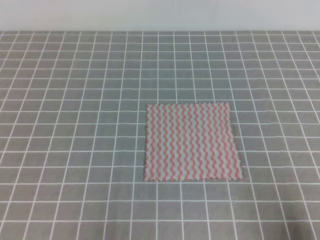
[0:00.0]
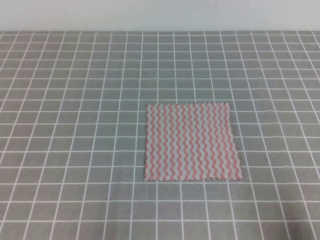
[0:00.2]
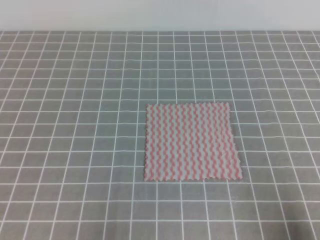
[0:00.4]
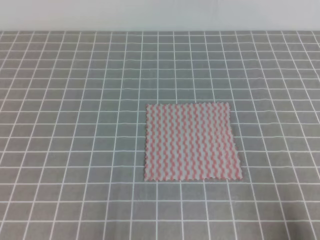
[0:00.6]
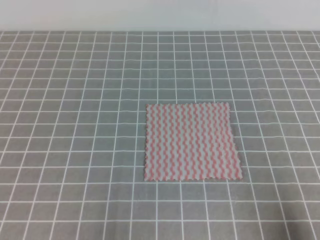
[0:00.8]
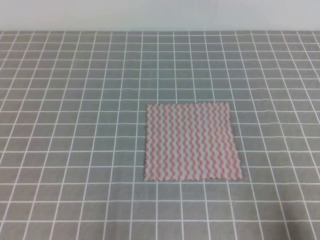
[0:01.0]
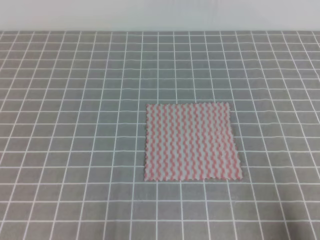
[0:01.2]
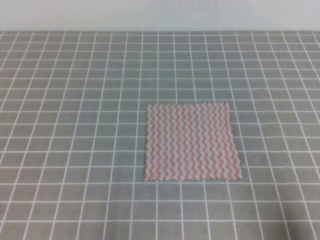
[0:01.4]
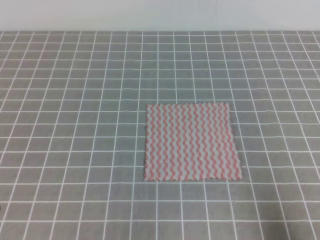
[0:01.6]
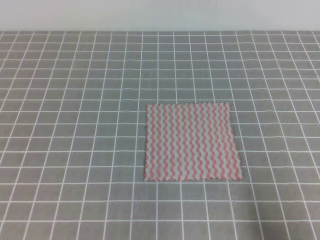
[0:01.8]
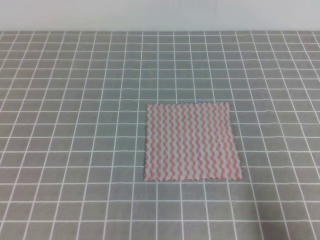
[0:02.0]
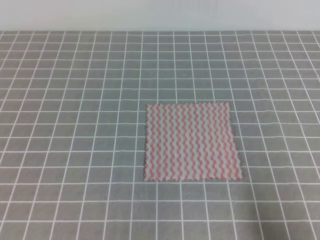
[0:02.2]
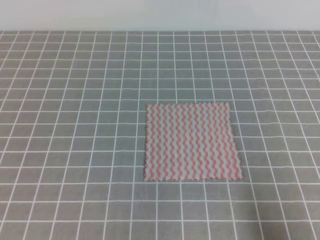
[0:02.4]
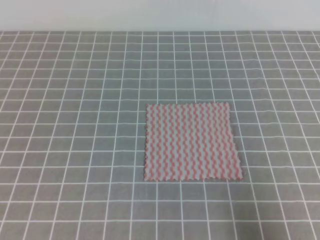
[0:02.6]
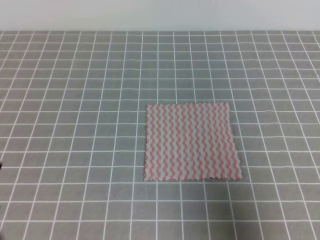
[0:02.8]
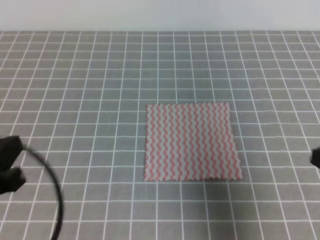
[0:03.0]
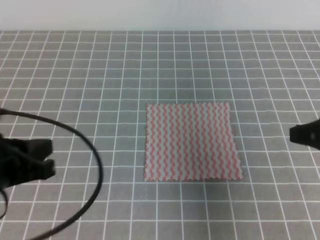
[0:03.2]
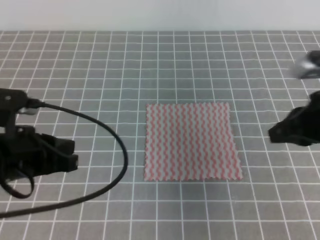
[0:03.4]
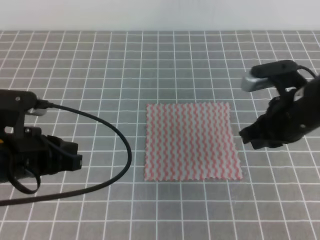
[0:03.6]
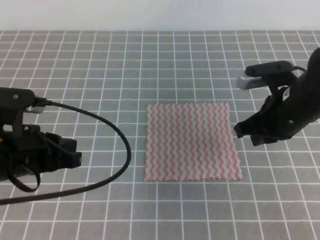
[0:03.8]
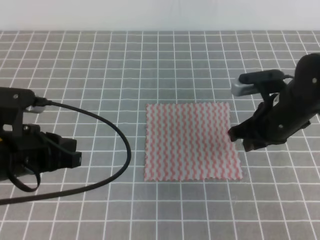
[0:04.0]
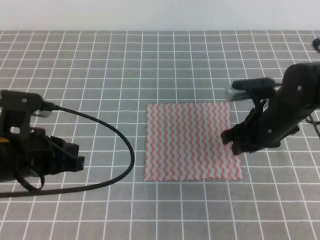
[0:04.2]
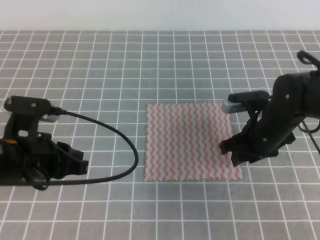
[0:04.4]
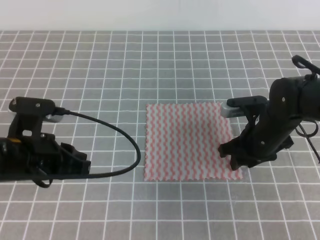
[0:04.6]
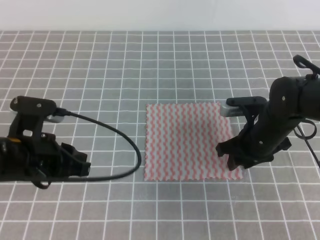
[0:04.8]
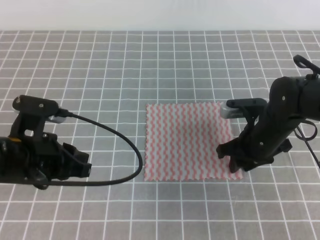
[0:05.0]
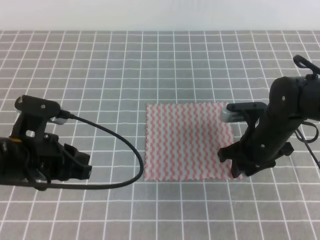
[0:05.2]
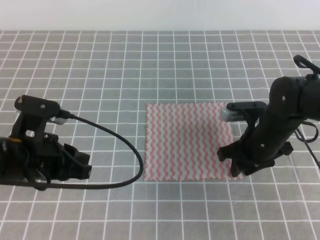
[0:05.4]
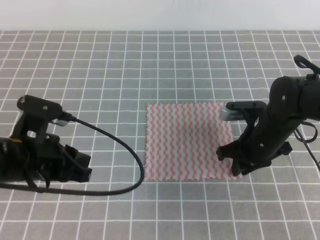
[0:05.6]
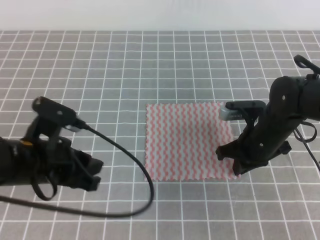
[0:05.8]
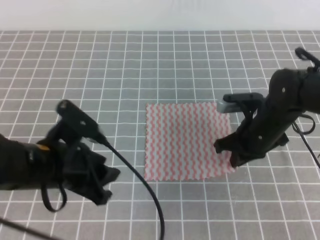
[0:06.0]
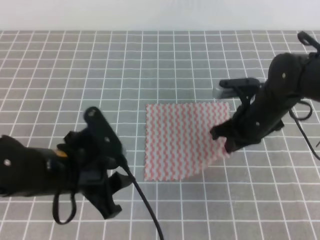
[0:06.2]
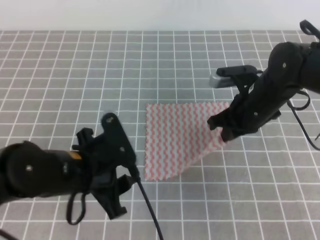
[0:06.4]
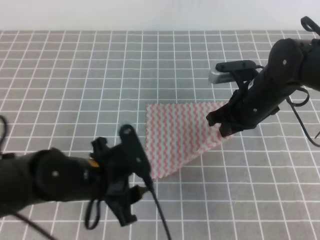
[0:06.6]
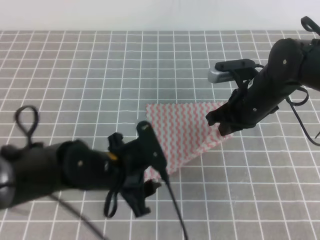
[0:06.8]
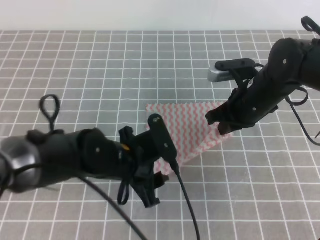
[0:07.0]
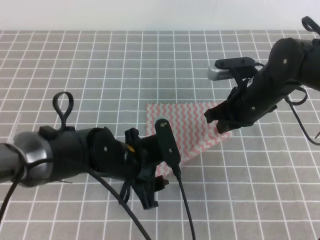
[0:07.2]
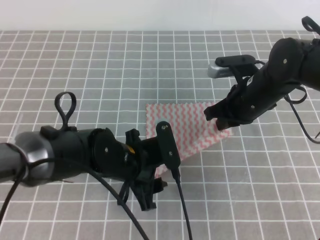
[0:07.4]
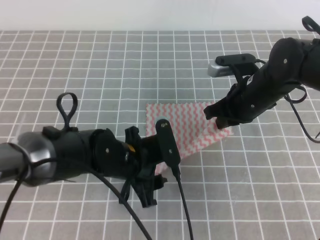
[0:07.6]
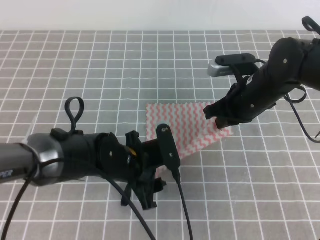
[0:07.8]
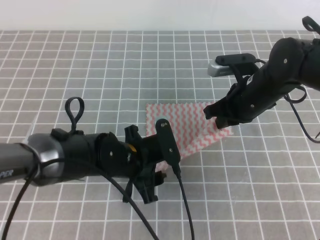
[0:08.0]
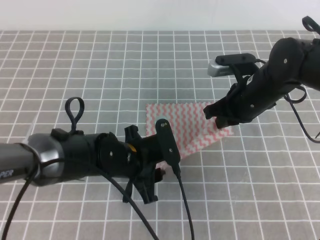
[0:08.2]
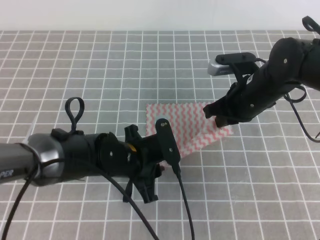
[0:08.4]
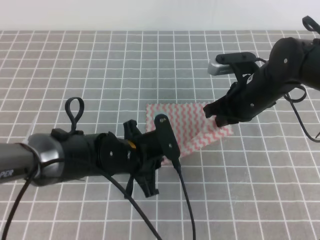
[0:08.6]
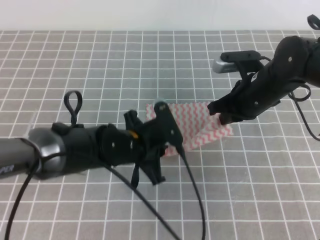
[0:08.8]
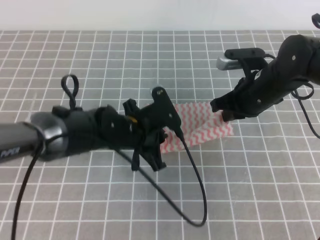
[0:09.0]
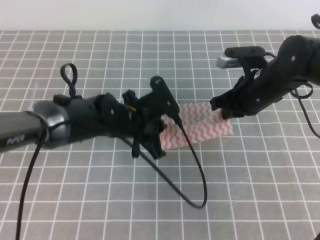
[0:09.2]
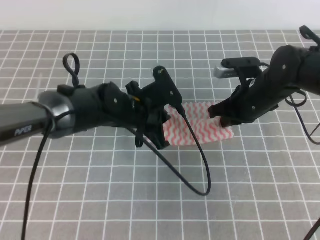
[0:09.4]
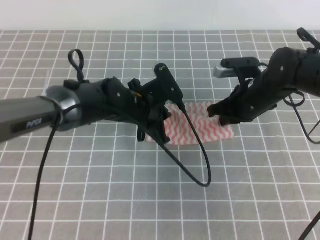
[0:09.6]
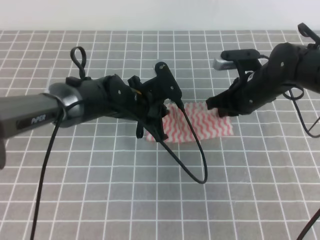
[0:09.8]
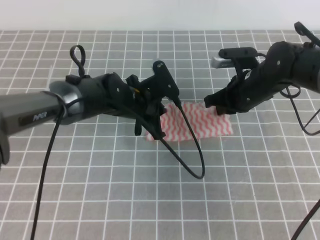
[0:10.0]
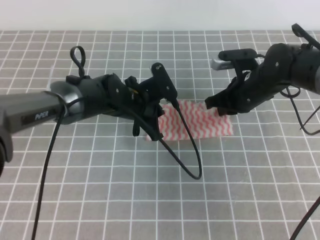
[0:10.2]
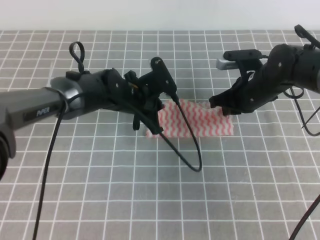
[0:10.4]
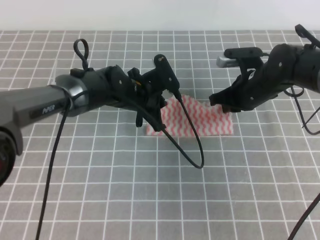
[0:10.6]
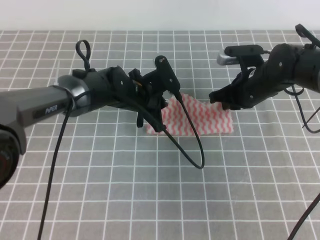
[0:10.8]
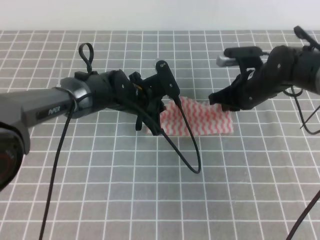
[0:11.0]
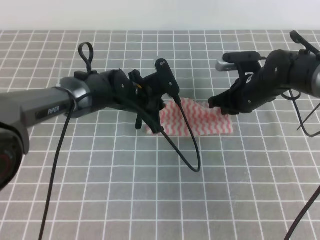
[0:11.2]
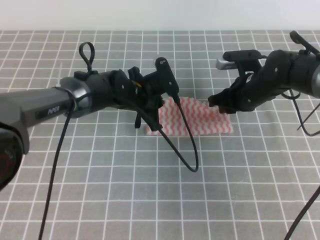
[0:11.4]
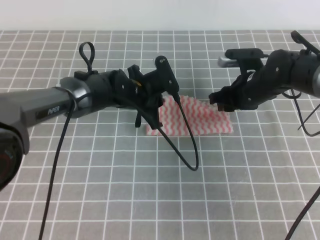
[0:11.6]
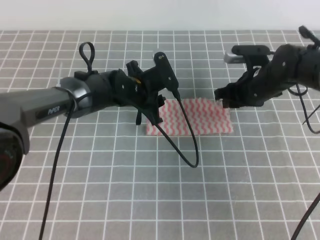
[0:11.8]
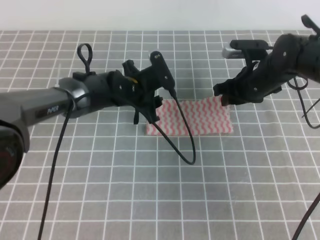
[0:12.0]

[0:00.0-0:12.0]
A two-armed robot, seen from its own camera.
Step, 0:00.0 to 0:07.4: Fold the towel upwards with the both gripper.
Step, 0:07.6 to 0:09.4: Fold the towel from right to left with the right gripper.
Step, 0:09.6 to 0:10.2: Tidy up the towels.
0:01.6 to 0:03.0: The grippers both shift upward and forward by roughly 10 cm.
0:03.0 to 0:04.4: The right gripper travels forward, to the left and downward by about 25 cm, and opens, while the left gripper heads forward, covering roughly 10 cm.
0:04.4 to 0:06.0: The right gripper closes up; the left gripper opens up.
0:06.0 to 0:07.6: The left gripper is displaced to the right and downward by approximately 10 cm, while the right gripper shifts by about 5 cm.
0:07.6 to 0:09.0: The left gripper changes place by about 5 cm, and closes.
0:09.0 to 0:10.4: The left gripper is displaced forward by approximately 10 cm.
0:10.4 to 0:12.0: The left gripper opens its fingers. The right gripper opens its fingers.

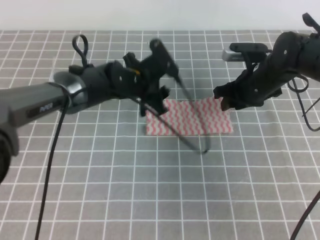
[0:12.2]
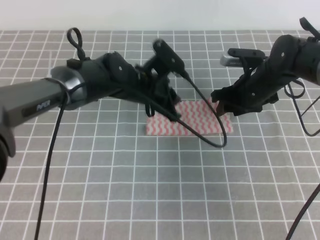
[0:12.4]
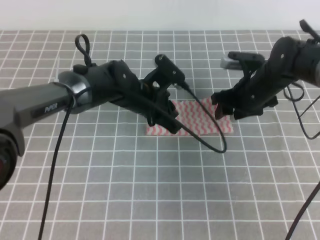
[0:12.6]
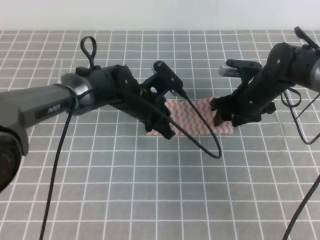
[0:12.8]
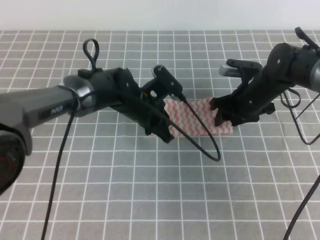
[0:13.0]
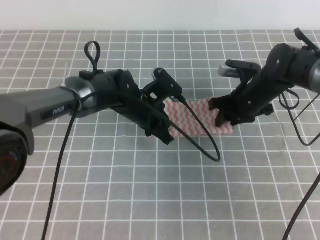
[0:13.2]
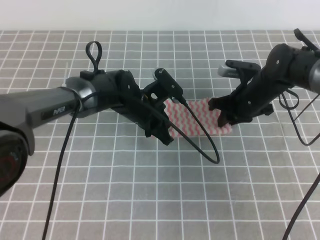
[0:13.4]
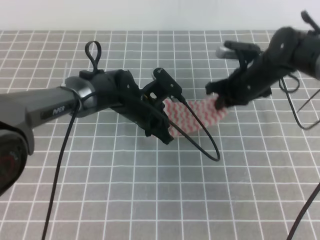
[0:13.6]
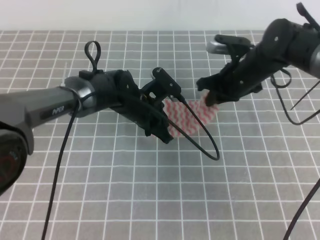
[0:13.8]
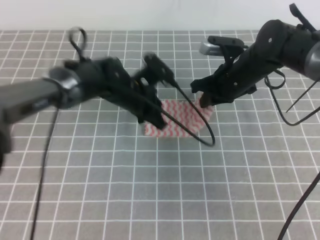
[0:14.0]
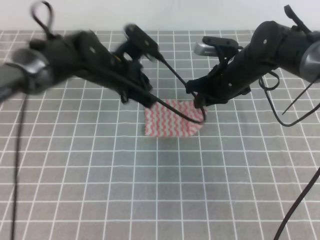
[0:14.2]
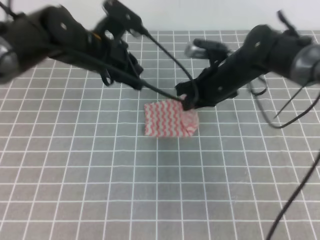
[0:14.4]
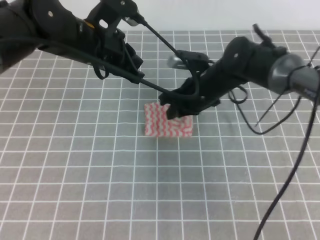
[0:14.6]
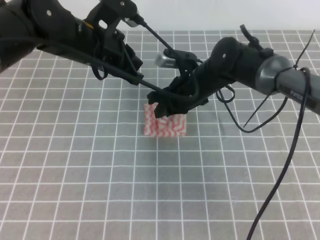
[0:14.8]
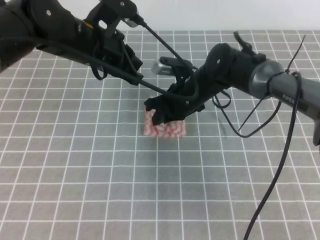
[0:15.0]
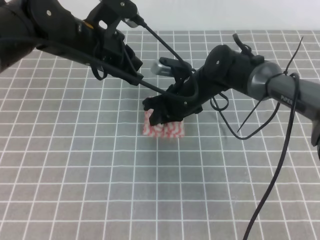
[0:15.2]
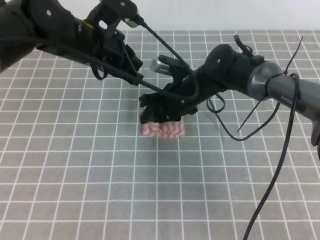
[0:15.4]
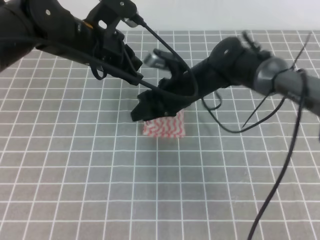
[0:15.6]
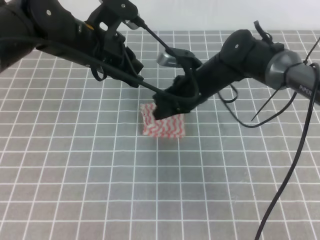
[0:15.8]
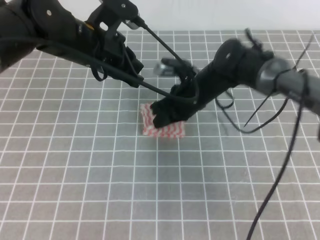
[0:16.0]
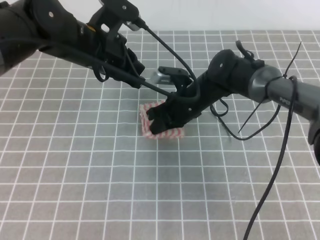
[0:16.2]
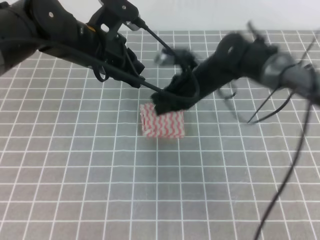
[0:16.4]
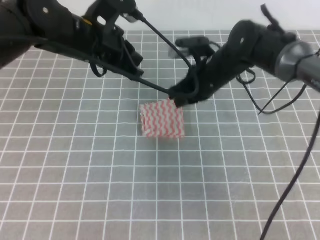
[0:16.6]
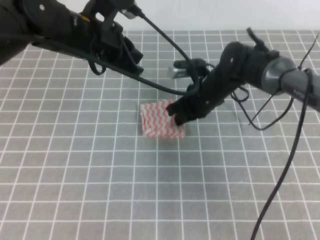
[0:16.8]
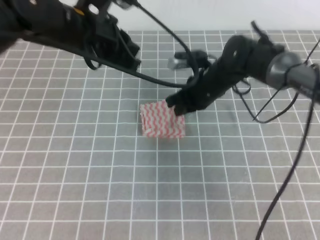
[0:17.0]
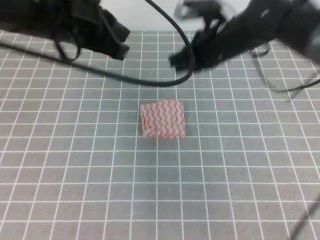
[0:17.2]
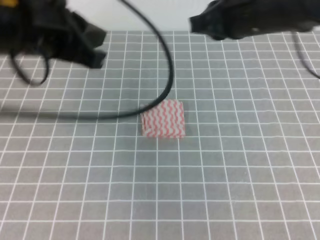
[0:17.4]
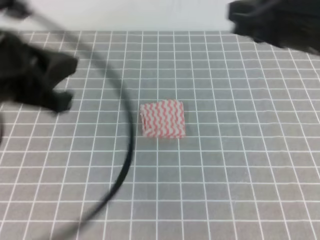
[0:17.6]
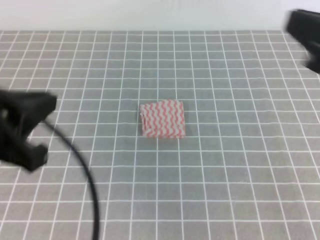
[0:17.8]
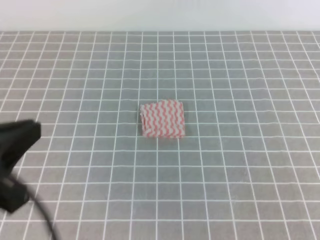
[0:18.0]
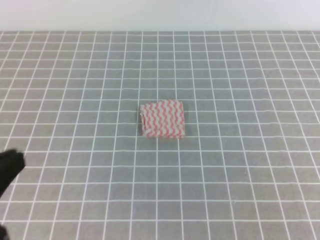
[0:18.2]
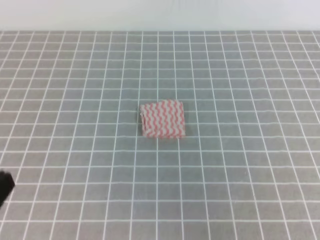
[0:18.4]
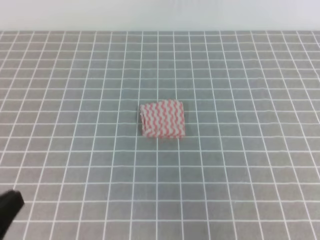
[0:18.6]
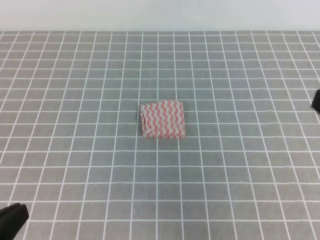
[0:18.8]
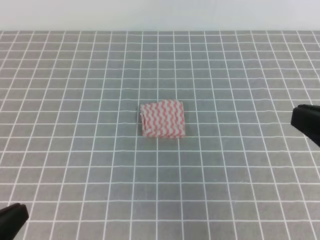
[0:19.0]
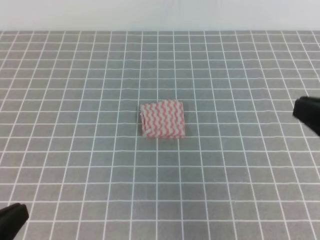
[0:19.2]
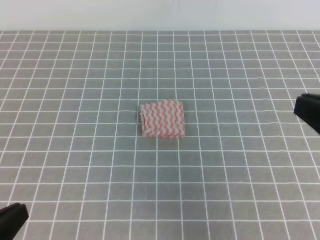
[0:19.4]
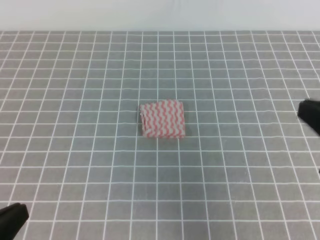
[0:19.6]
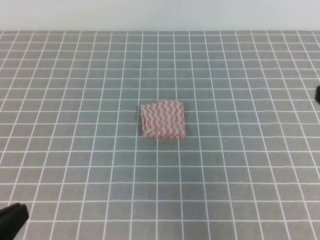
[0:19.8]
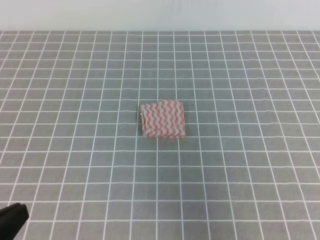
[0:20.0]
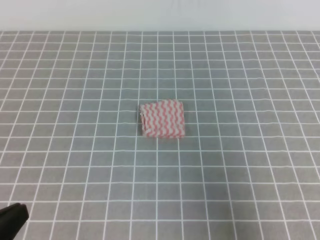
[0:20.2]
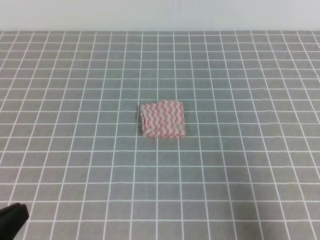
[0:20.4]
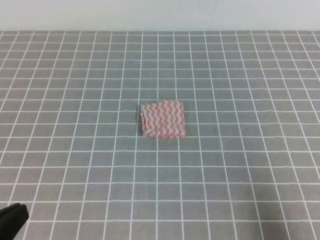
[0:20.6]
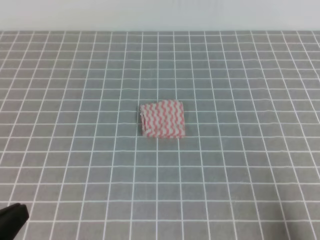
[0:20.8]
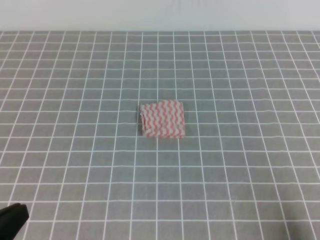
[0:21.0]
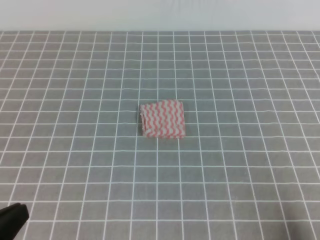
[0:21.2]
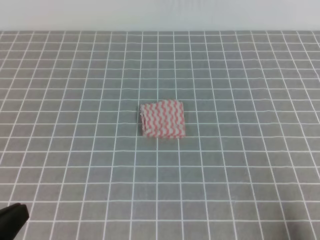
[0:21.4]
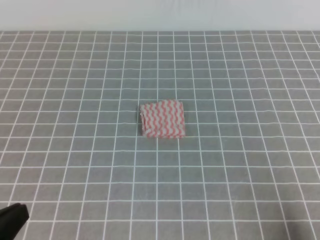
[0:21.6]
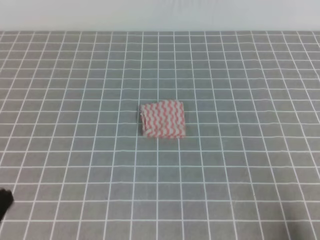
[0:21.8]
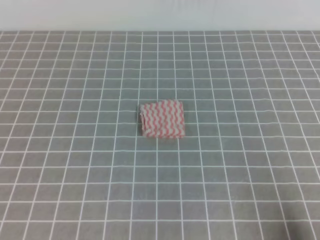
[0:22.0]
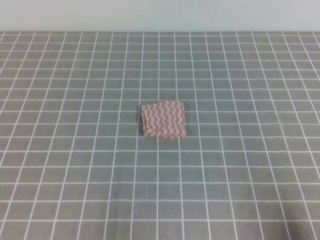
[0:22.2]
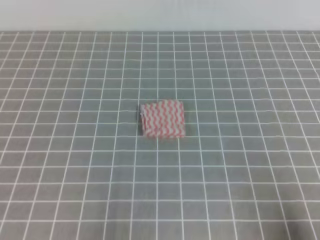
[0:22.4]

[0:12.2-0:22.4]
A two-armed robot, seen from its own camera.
0:12.2 to 0:13.6: The left gripper closes up, while the right gripper closes.
0:13.6 to 0:15.2: The right gripper travels to the left by some 10 cm, while the left gripper travels upward and to the left by about 15 cm.
0:15.2 to 0:16.6: The grippers move only a little.
0:16.6 to 0:18.0: The left gripper travels backward and to the left by approximately 30 cm; the right gripper is displaced backward, upward and to the right by about 40 cm.
0:18.0 to 0:19.4: The left gripper travels downward and backward by some 10 cm. The right gripper shifts roughly 5 cm downward.
0:19.4 to 0:21.0: The right gripper heads downward, to the right and backward, covering approximately 20 cm.
0:21.0 to 0:22.4: The left gripper moves downward, some 10 cm.
